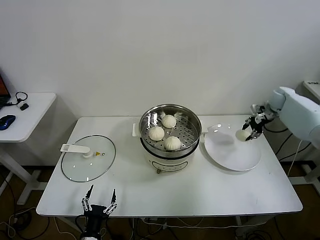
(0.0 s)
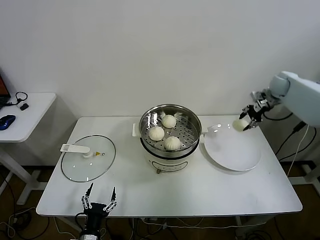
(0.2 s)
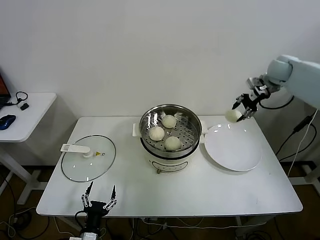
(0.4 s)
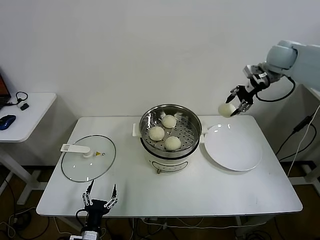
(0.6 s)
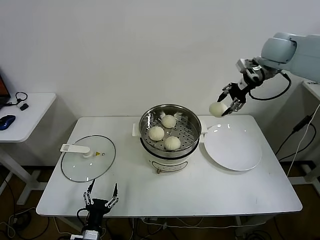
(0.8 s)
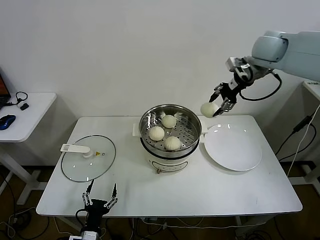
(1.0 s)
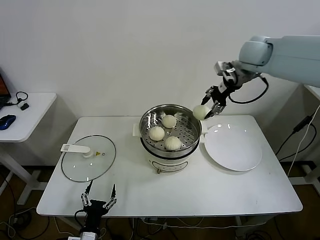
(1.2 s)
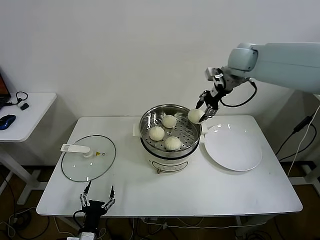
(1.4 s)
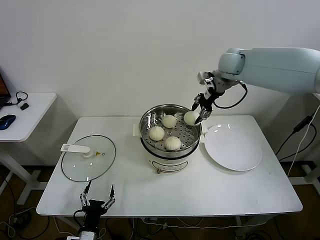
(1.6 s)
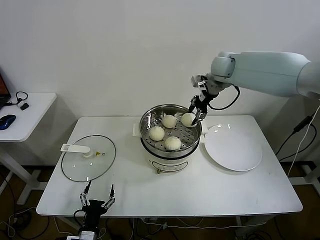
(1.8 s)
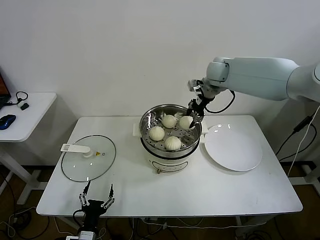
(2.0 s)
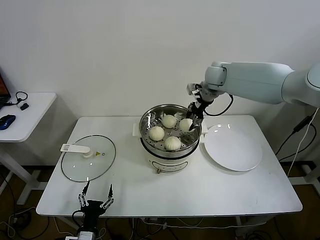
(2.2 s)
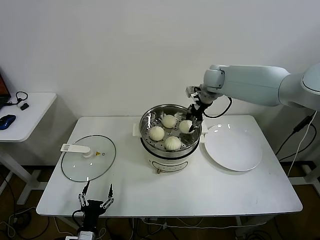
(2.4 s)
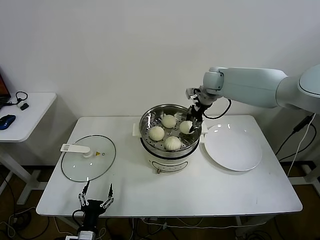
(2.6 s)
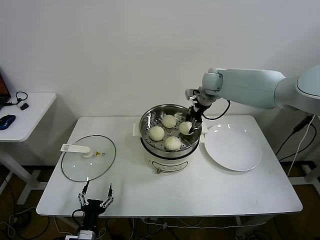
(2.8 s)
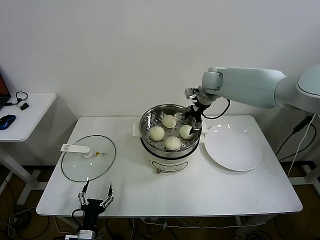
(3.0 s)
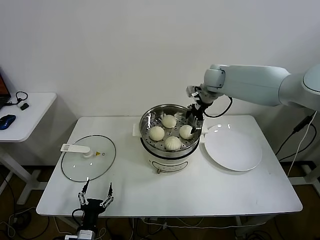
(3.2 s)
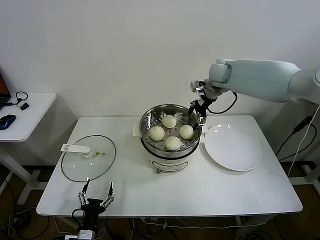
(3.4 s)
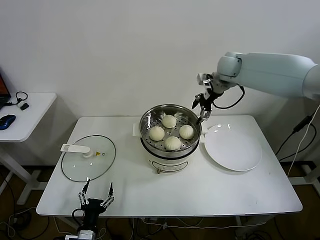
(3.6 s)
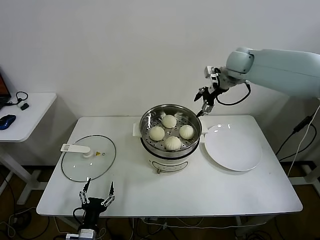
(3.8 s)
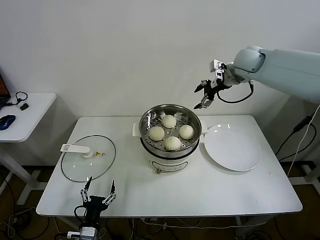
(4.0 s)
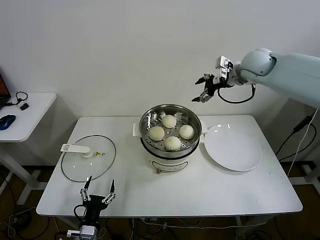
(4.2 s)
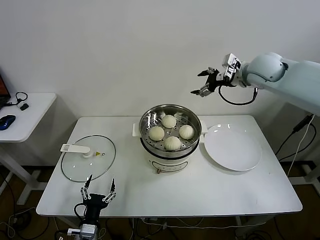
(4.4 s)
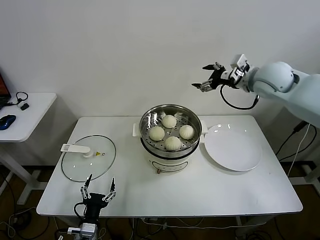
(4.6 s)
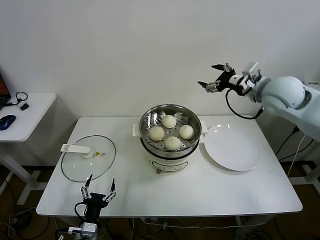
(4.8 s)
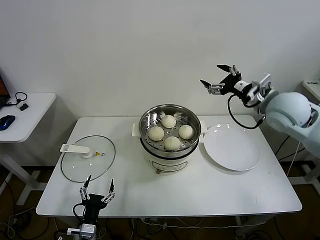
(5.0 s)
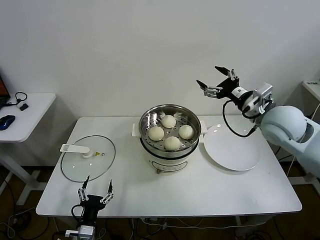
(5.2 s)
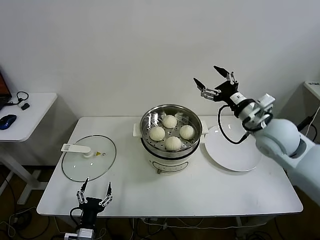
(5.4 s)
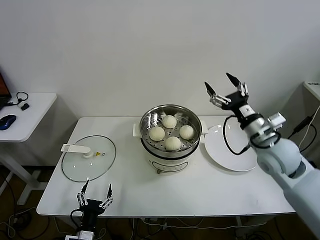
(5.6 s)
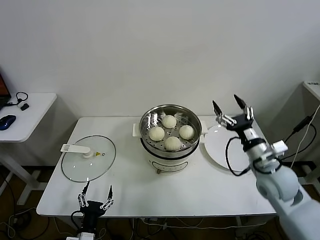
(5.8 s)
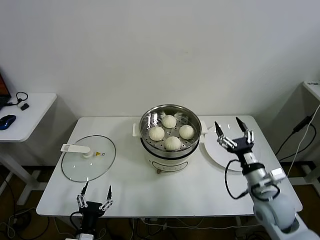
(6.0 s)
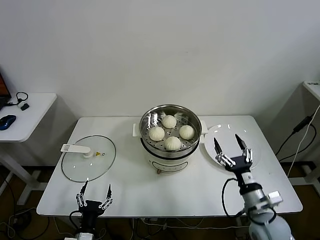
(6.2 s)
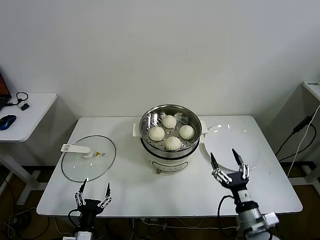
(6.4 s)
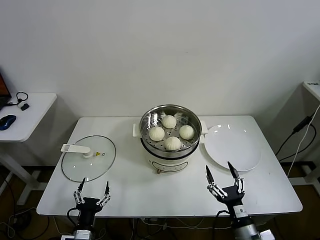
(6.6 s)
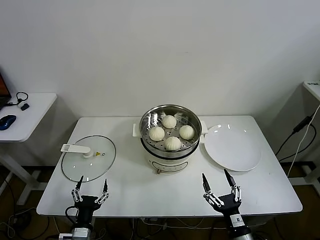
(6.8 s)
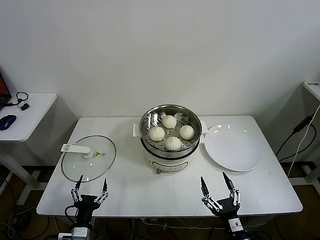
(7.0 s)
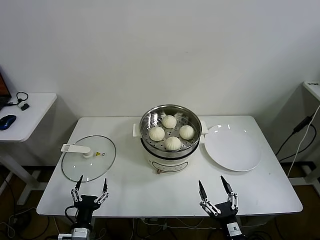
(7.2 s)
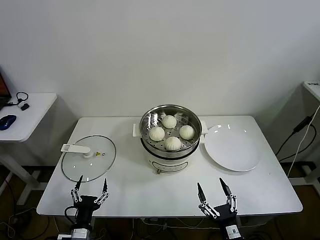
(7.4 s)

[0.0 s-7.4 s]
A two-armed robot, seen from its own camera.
Task of the whole recording: take steamed baozi put them in steamer.
Step, 0.0 to 3.2 s: Place the baozi on the steamer with right gripper.
0.0 to 1.4 s: The right gripper heads to the left and upward, covering approximately 30 cm.
1.4 to 3.0 s: The right gripper shifts about 10 cm downward and to the left, and opens up.
3.0 to 4.4 s: The right gripper heads to the right, upward and backward, covering about 15 cm, and opens up.
4.4 to 6.0 s: The right gripper moves backward and downward, some 35 cm.
6.0 to 7.4 s: The right gripper heads backward, downward and to the left, covering roughly 25 cm.

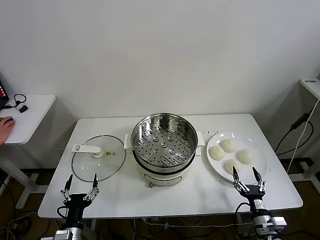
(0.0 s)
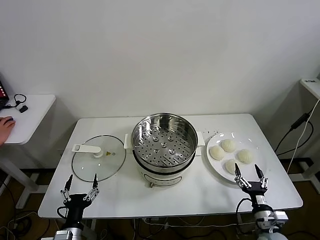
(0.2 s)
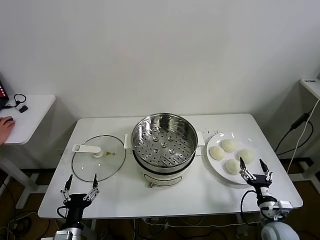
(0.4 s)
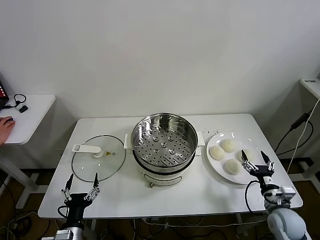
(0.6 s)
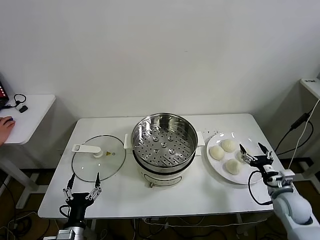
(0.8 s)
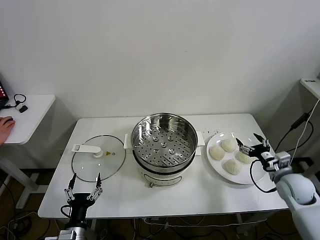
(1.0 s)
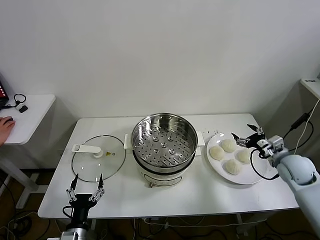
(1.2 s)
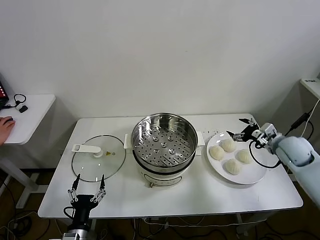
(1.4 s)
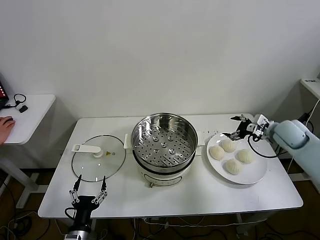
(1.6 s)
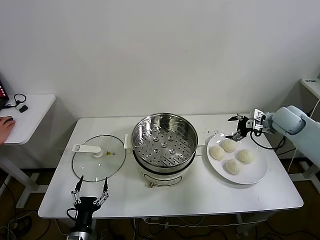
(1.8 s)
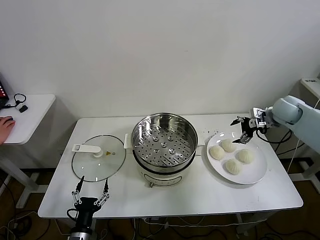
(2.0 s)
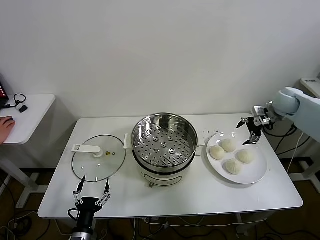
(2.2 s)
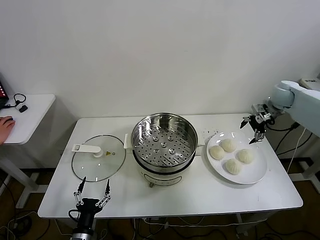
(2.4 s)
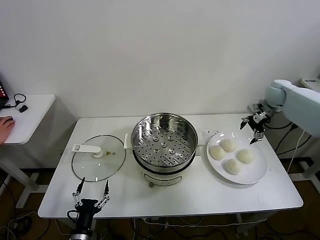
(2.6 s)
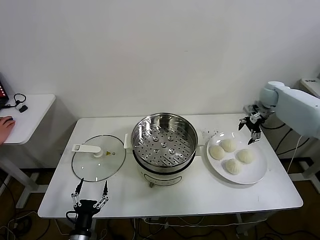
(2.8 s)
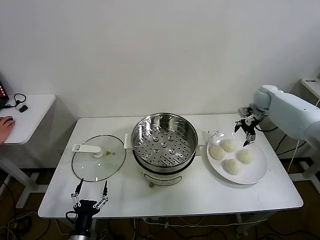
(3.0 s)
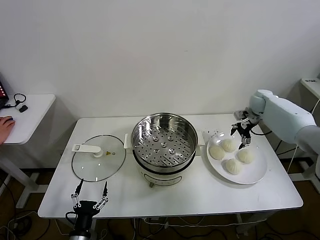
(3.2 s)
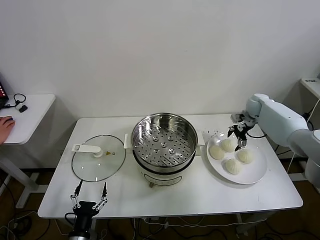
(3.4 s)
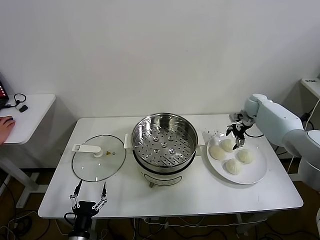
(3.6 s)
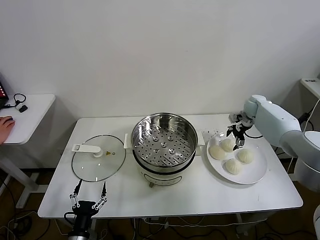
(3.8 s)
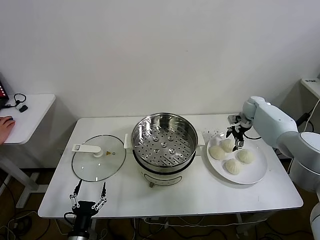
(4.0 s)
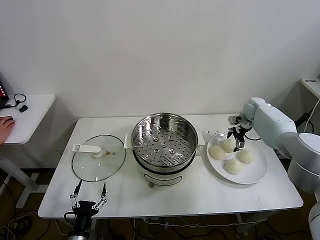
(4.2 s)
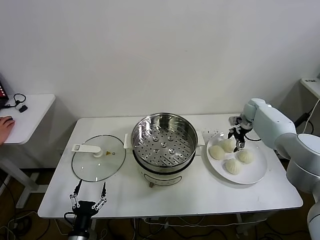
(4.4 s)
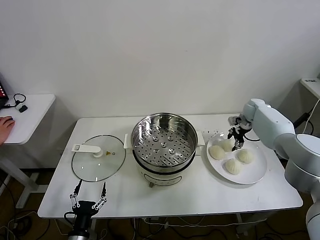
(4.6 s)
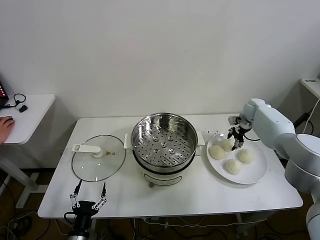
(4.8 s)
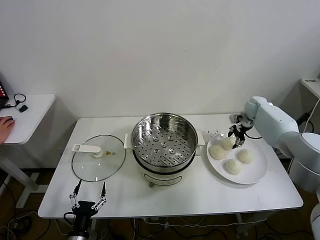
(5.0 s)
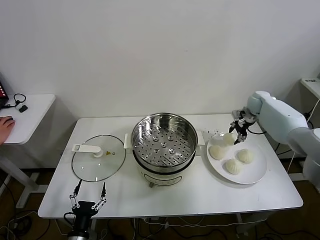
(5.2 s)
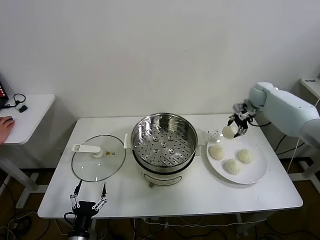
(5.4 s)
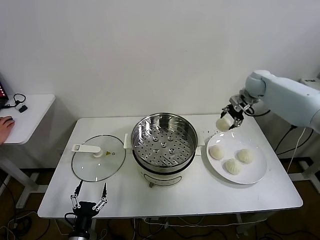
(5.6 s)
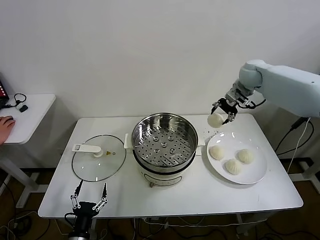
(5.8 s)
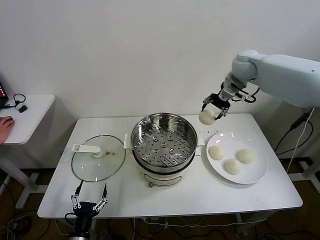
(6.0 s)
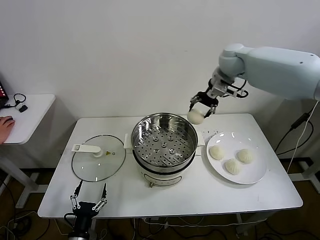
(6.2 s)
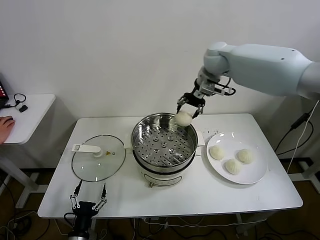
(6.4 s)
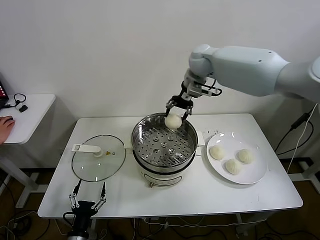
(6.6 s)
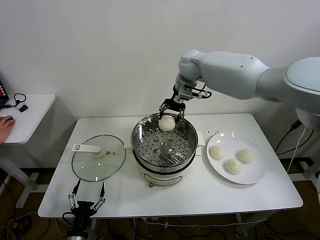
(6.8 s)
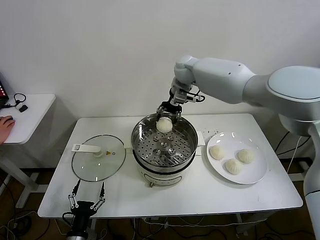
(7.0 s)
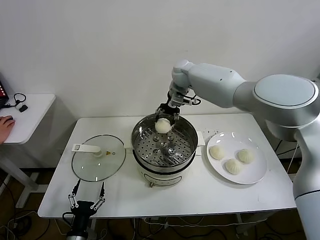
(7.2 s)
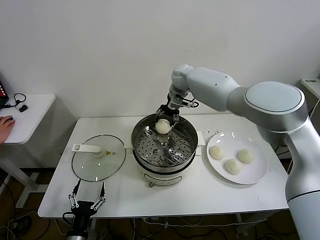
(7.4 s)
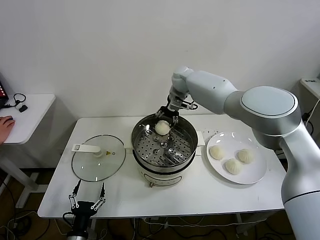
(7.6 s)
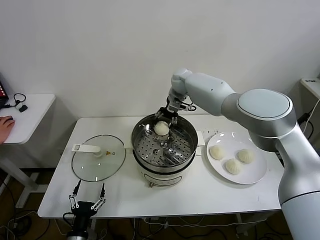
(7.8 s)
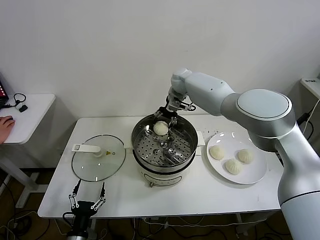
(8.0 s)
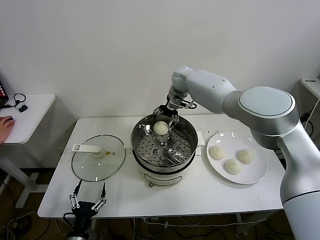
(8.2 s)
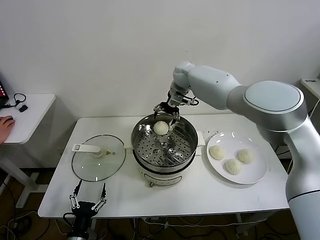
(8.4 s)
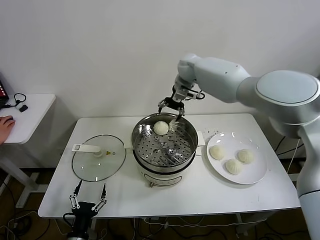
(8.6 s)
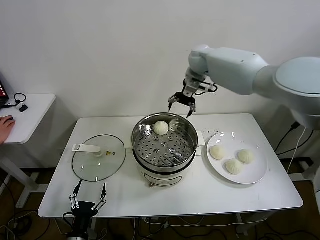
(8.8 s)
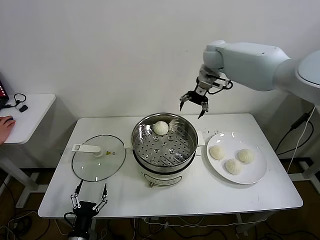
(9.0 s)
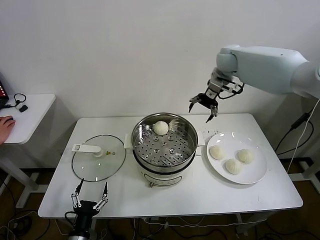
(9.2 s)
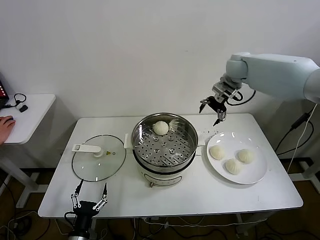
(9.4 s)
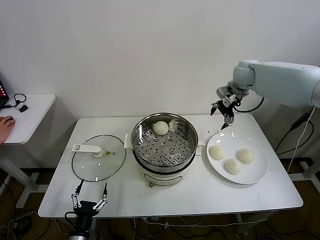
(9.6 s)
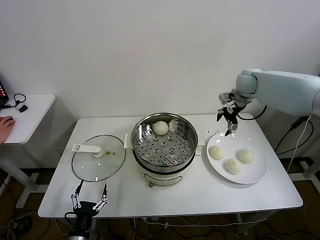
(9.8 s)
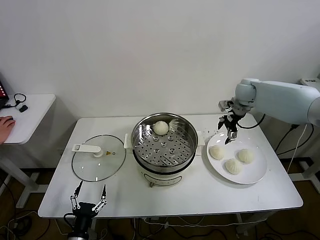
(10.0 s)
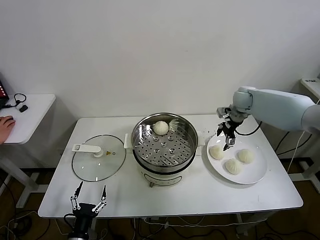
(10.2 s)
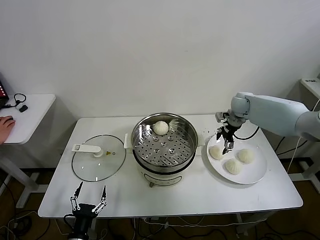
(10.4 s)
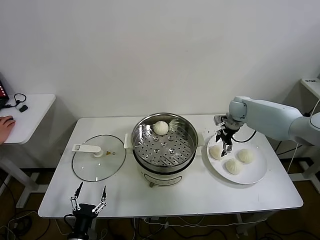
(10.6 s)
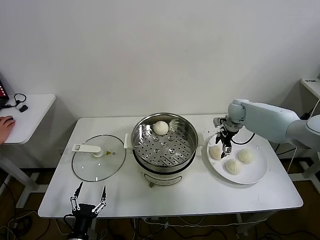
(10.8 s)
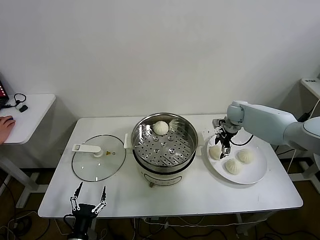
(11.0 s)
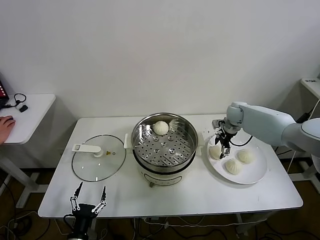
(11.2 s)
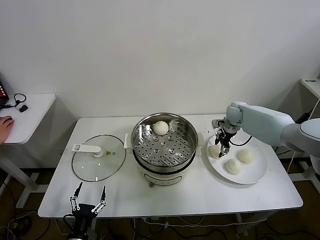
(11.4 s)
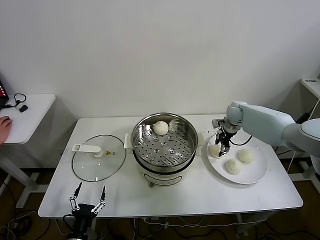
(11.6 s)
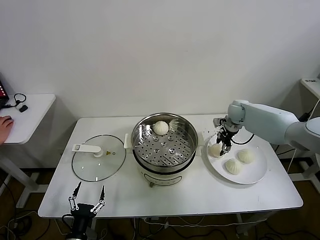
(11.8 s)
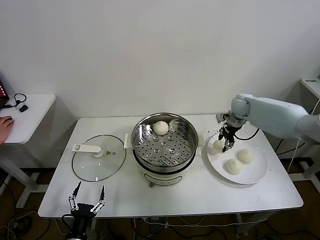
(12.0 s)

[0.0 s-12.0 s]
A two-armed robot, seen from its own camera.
Task of the whole recording: take steamed baozi put them in steamer.
Step, 0.0 to 4.8 s: Grasp the baozi in the plate with right gripper.
Step, 5.2 to 8.2 s: Place the baozi on the steamer with right gripper.
Step, 8.4 to 11.4 s: Grasp the baozi in the plate with right gripper.
1.6 to 3.0 s: The right gripper goes some 15 cm forward.
3.0 to 4.4 s: The right gripper travels downward by some 5 cm.
4.4 to 6.0 s: The right gripper shifts about 30 cm upward and to the left.
6.0 to 7.6 s: The right gripper travels to the left and downward by about 20 cm.
7.6 to 9.0 s: The right gripper moves to the right and upward, some 15 cm, and opens its fingers.
9.0 to 10.4 s: The right gripper goes some 20 cm downward and to the right.
10.4 to 12.0 s: The right gripper closes up.

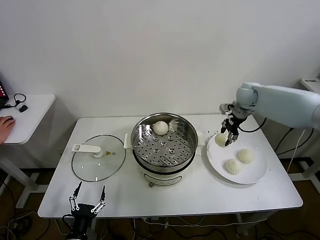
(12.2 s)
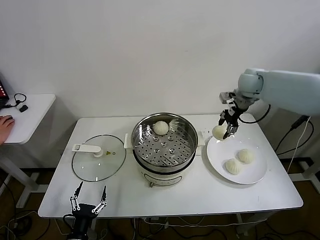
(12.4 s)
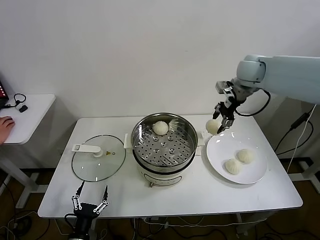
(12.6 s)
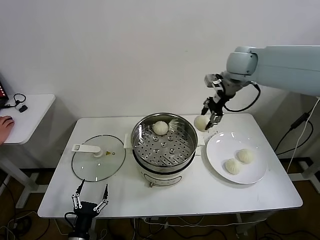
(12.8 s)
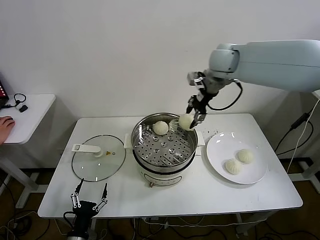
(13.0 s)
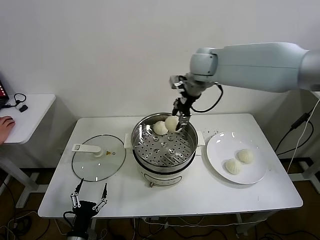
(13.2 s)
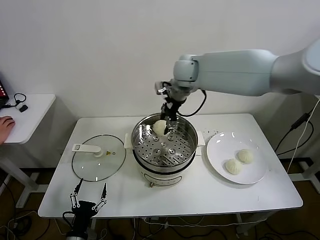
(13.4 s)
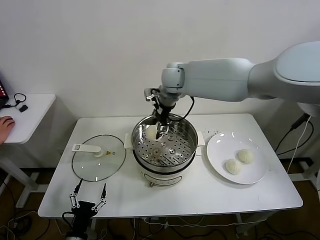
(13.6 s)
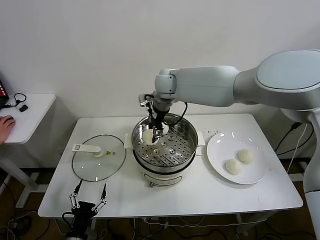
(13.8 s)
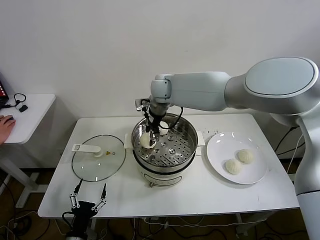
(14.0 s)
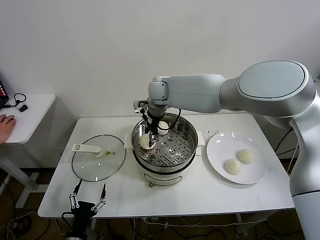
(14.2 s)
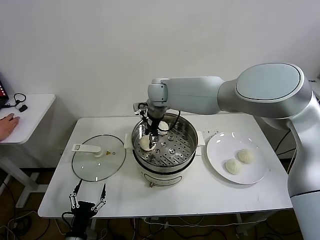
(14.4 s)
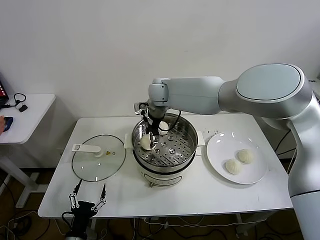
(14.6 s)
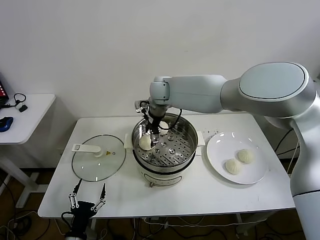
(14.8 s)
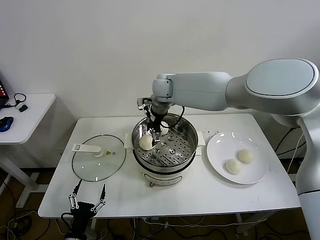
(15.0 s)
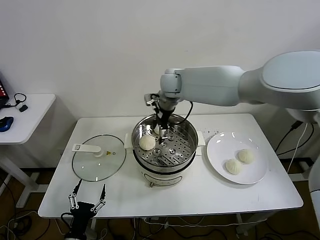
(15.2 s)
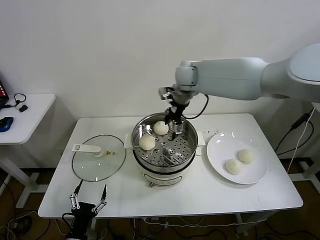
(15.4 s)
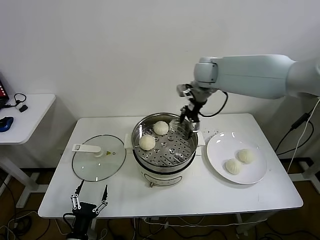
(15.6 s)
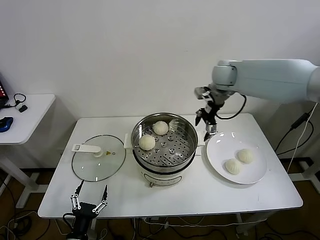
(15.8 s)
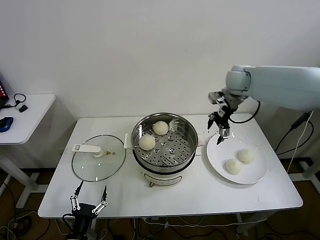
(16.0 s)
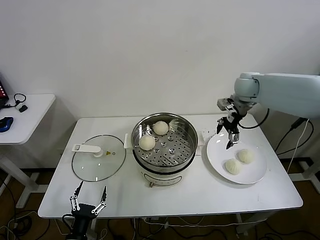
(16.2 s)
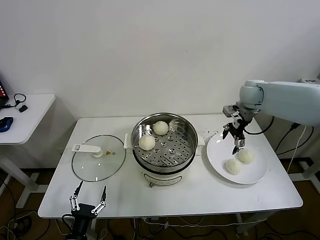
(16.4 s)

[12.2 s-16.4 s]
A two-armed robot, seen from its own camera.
Task of the whole recording: take steamed baozi put them in steamer.
Step, 12.2 to 14.8 s: Place the baozi on the steamer with right gripper.
12.2 to 13.6 s: The right gripper is displaced to the left by some 30 cm.
13.6 to 15.0 s: The right gripper opens its fingers.
15.0 to 16.4 s: The right gripper moves to the right, roughly 30 cm.
